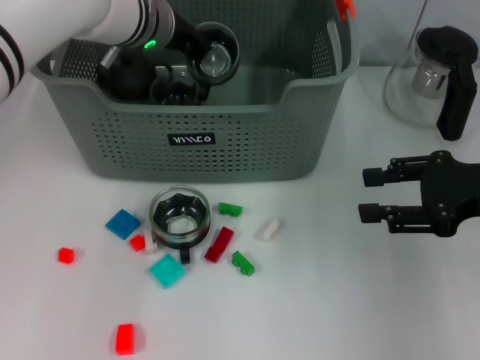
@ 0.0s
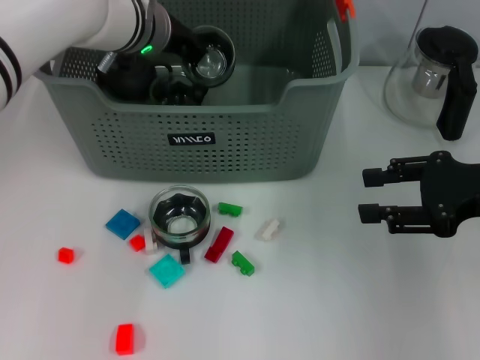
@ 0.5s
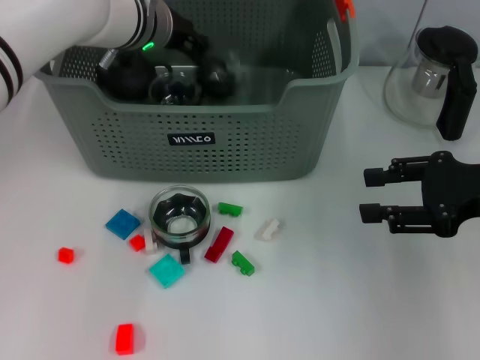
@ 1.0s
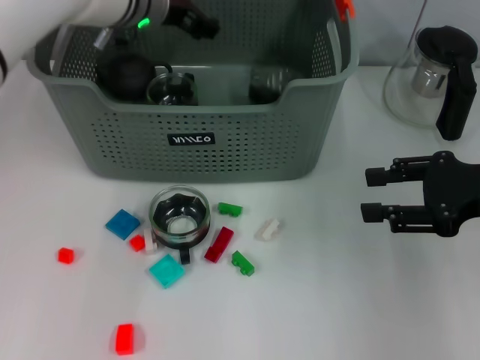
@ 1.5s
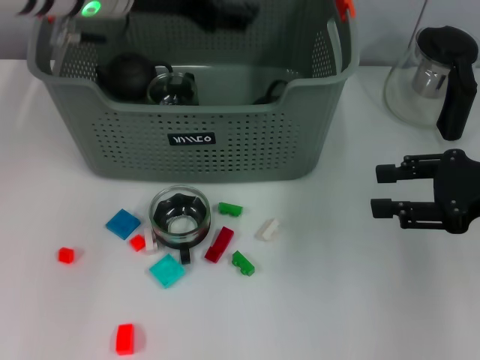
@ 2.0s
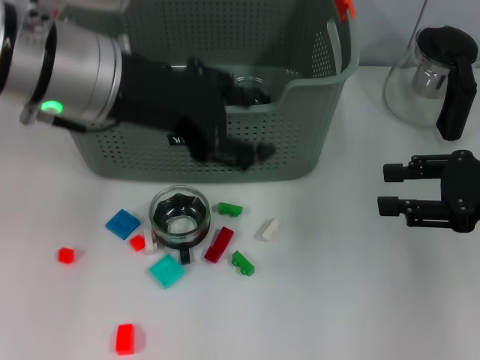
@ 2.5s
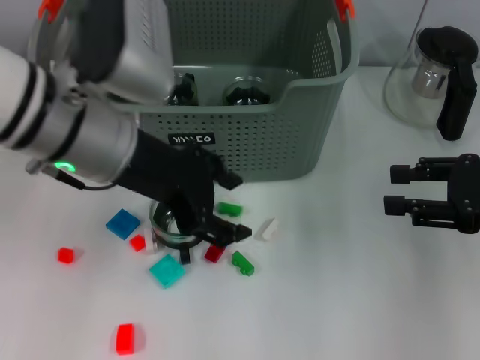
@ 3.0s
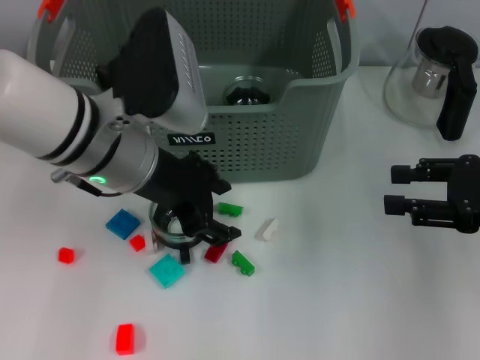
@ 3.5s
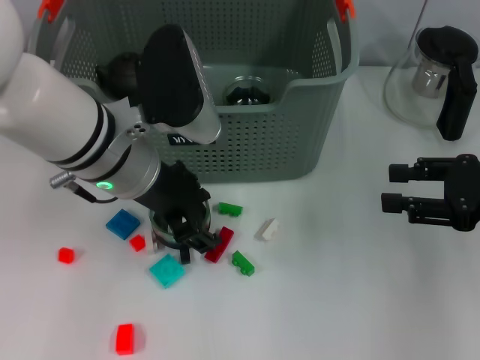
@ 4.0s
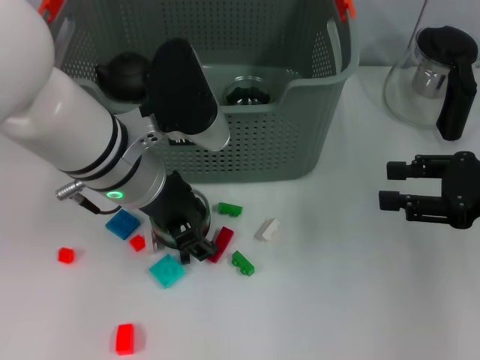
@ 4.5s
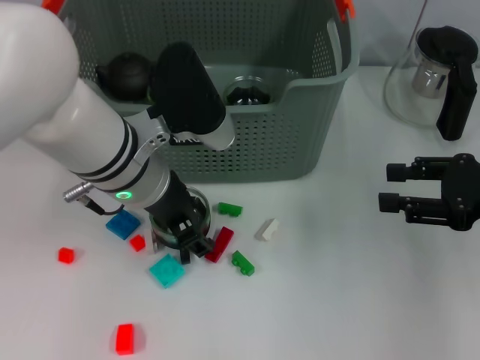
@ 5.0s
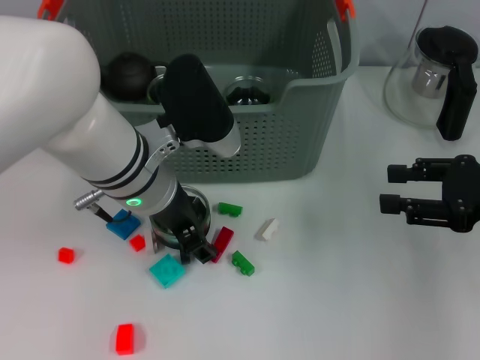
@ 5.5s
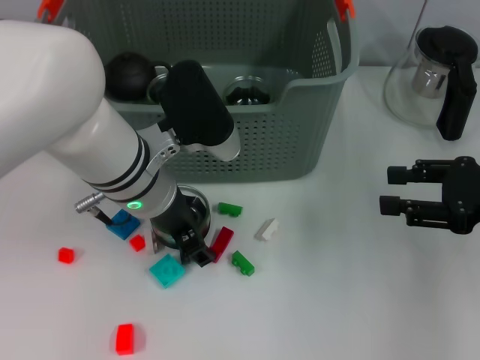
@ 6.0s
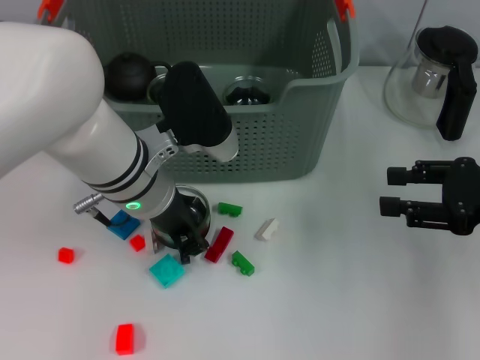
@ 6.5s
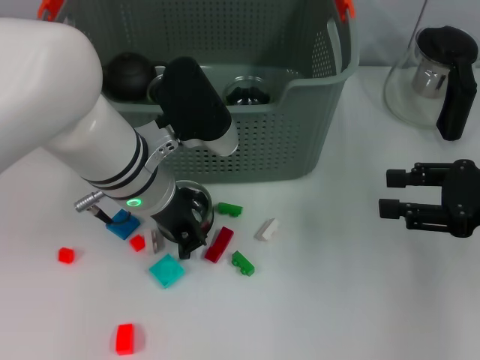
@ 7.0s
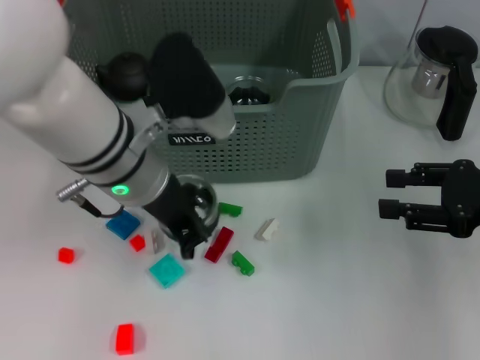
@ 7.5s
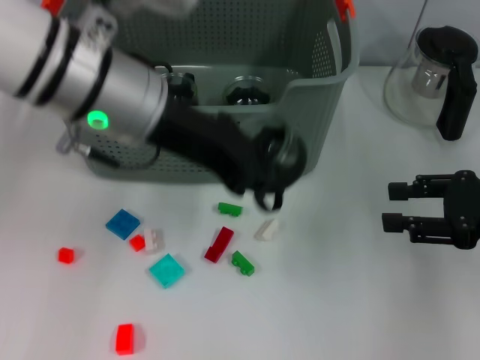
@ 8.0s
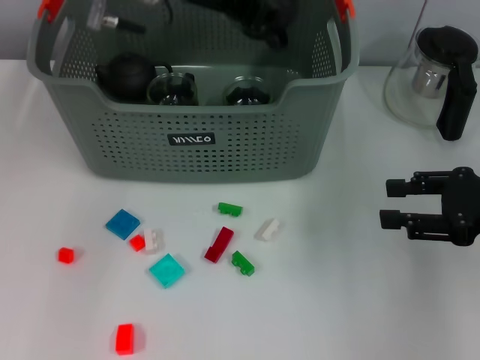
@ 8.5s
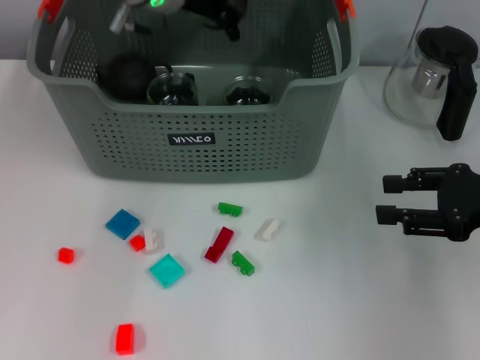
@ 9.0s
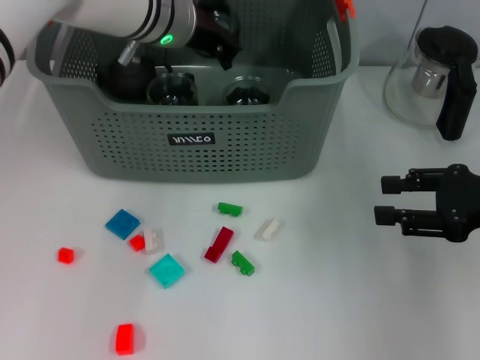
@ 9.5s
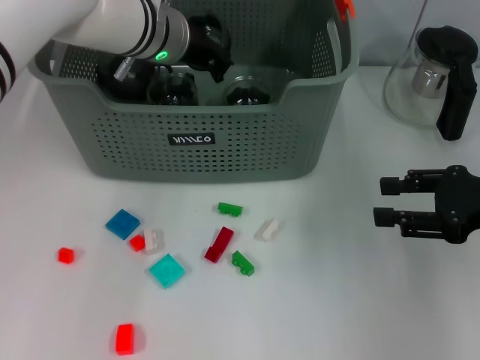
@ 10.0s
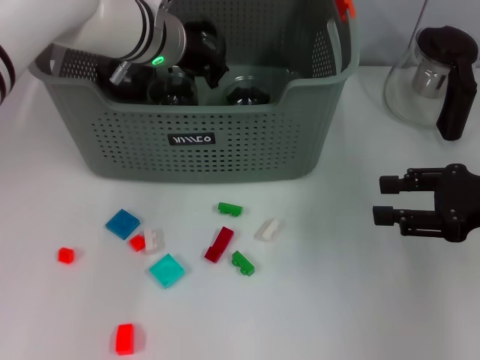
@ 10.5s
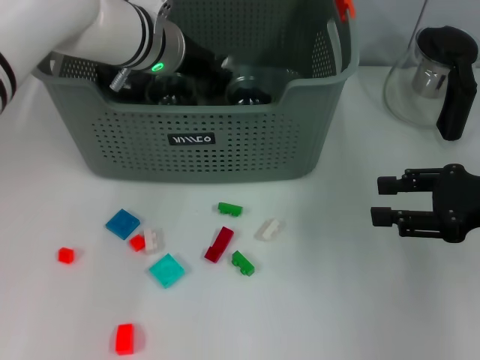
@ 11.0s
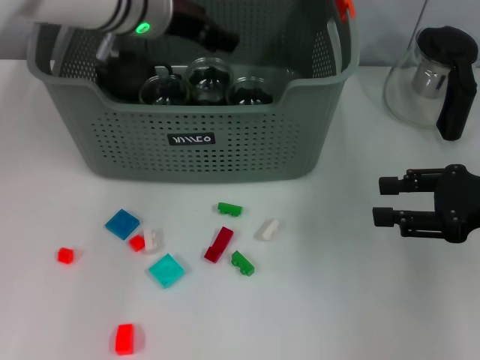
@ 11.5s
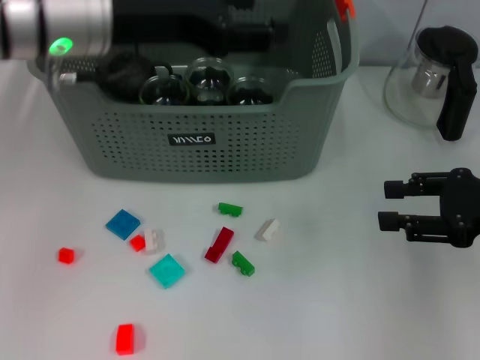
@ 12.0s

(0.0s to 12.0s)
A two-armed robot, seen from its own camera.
Task of the whole recording: pick up the teacup on the table and place it into the storage bin, pick up the block on the table and place it into the storage bin.
Step, 1.5s - 6.5s: Grasp the cup with left gripper.
Step, 7.0s - 11.0s: Place the cup in the storage box with left gripper.
0.0s - 2.0s: The left gripper travels upward and backward by some 10 cm, and opens.
2.0s - 4.0s: The left gripper travels downward and backward by approximately 10 cm.
4.0s - 6.0s: There are only small adjustments of the grippers.
6.0s - 8.0s: The left gripper shifts about 10 cm upward, and closes up.
8.0s - 10.0s: The left gripper is displaced forward and downward by approximately 15 cm.
10.0s - 12.0s: The left gripper is displaced backward, upward and to the left by roughly 15 cm, and opens its fingers.

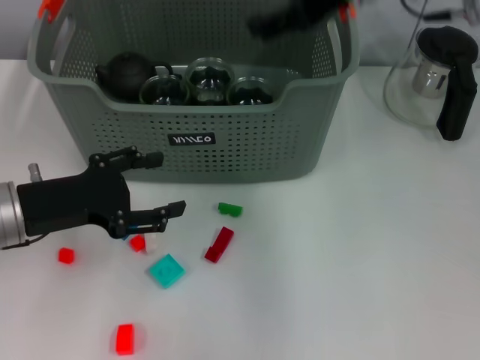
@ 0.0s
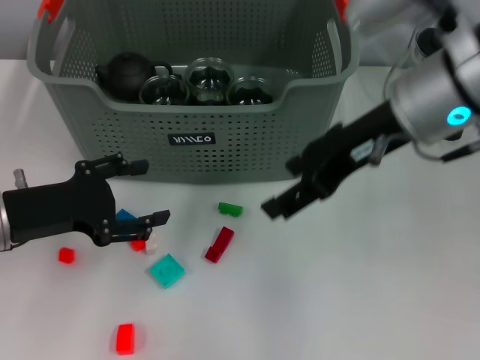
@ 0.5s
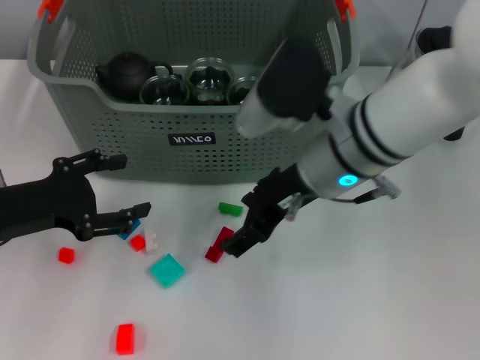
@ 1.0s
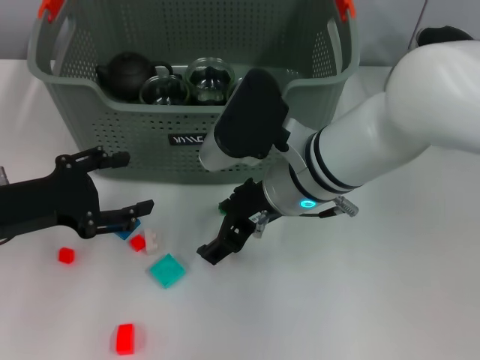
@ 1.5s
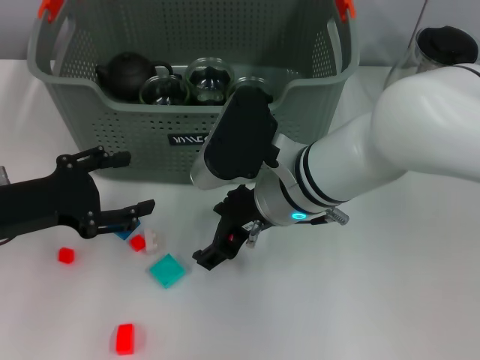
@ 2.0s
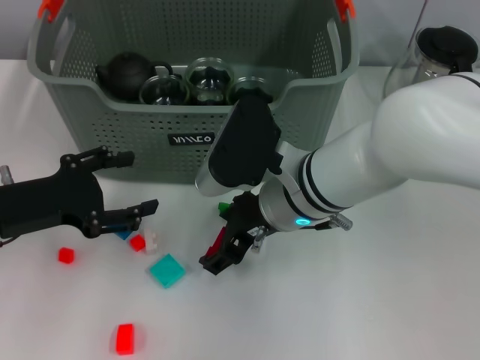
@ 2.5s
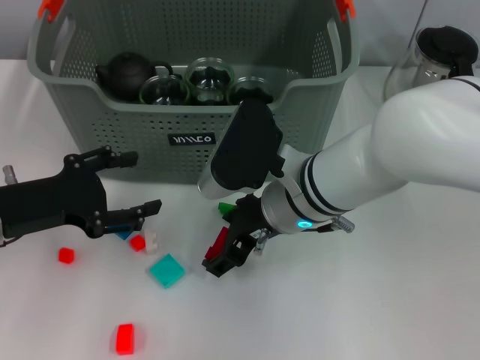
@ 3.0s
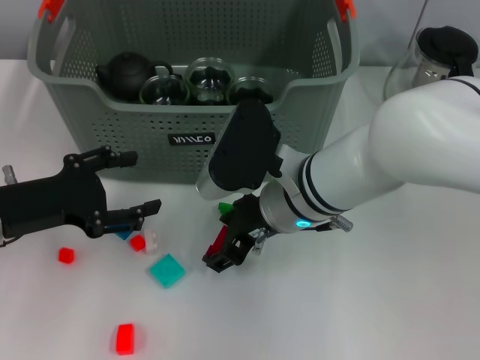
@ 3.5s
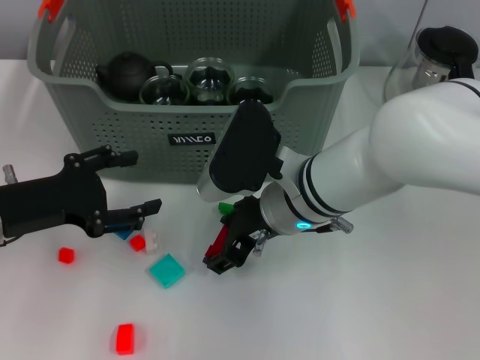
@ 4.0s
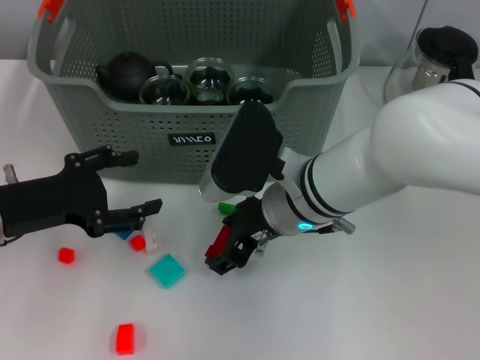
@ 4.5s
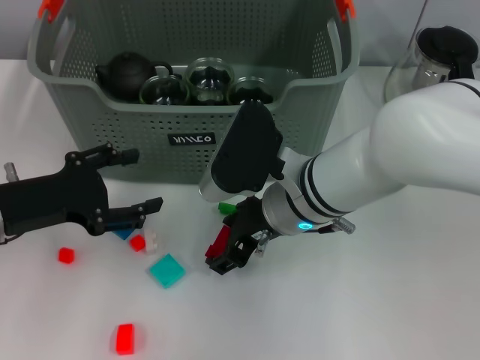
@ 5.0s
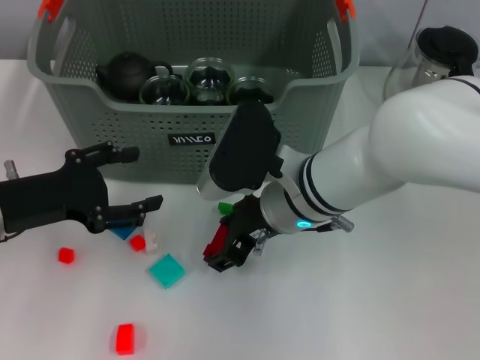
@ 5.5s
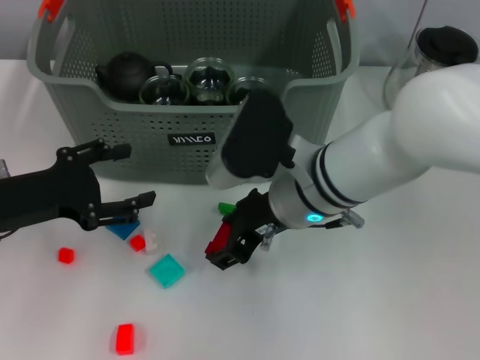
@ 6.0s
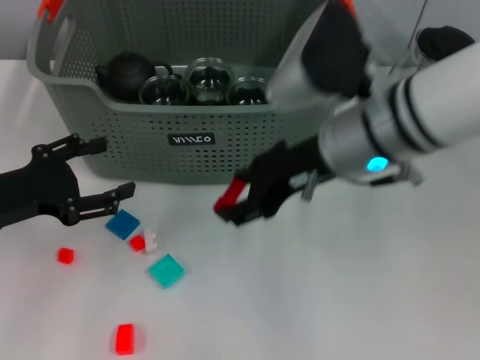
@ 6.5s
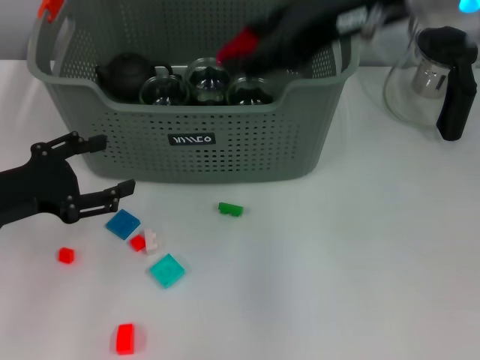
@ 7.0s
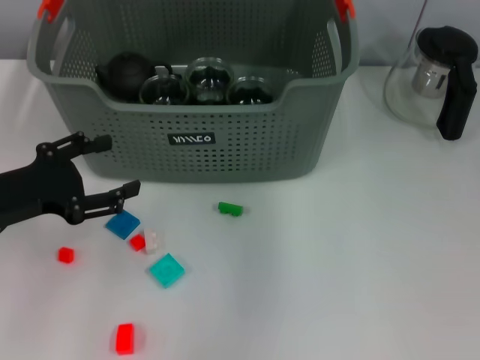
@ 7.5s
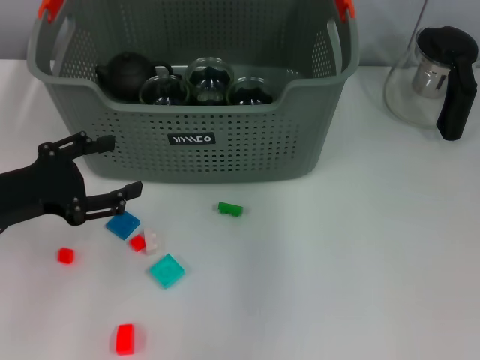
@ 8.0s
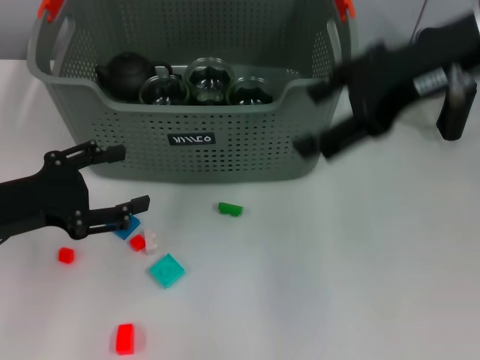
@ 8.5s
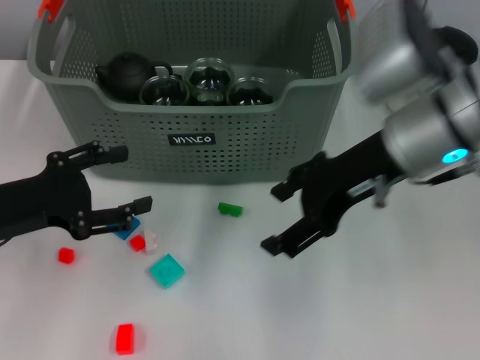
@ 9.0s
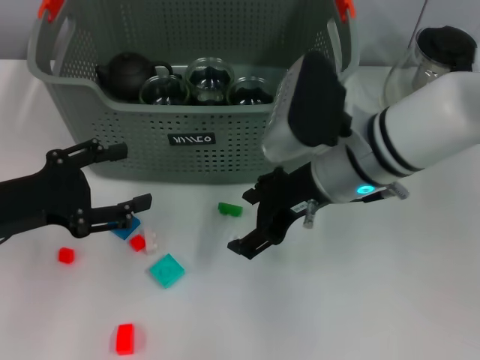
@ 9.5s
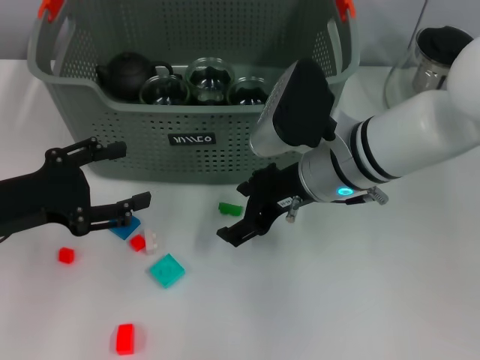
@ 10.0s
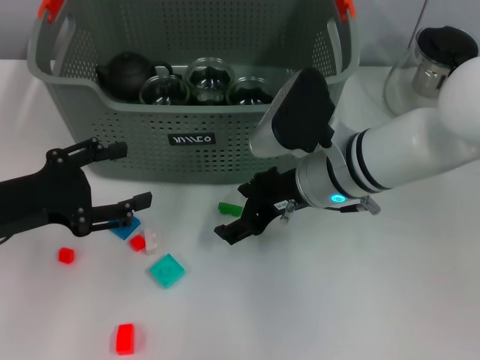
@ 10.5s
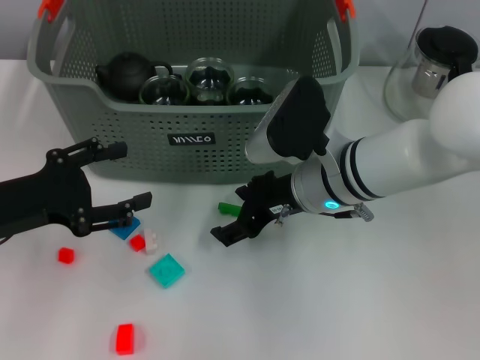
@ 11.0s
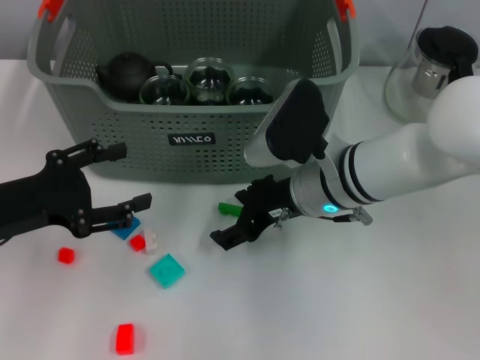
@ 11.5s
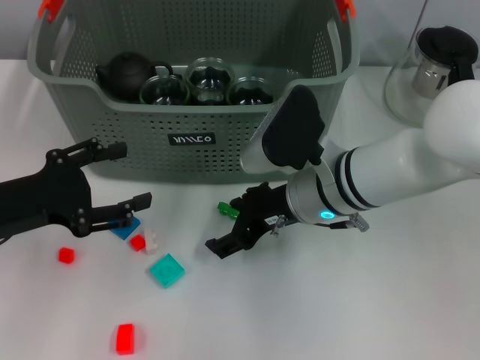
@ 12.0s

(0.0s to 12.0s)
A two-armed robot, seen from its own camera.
Task of the whole recording: pick up the teacup on the table and place it into the storage bin, pick up the block on the table and place it into the storage bin.
Step, 0.0s - 5.0s: Grasp the red block with right gripper.
Step, 5.5s - 7.5s: Place the red block in the storage box with right gripper.
0.0s - 2.0s: The right gripper travels downward and to the left by roughly 20 cm.
2.0s - 4.0s: The two grippers keep their place.
4.0s - 6.0s: The grippers move only a little.
6.0s - 8.0s: The right gripper is displaced upward, to the right and forward by some 25 cm.
8.0s - 10.0s: The right gripper is displaced downward, to the left and backward by about 20 cm.
10.0s - 12.0s: The grippers move only a little.

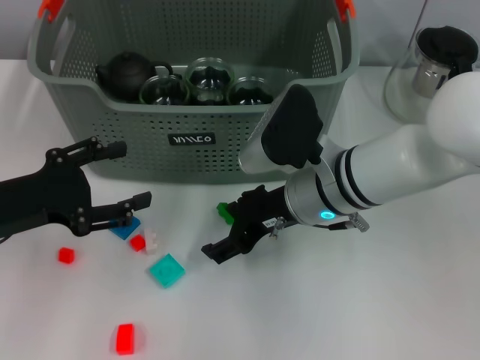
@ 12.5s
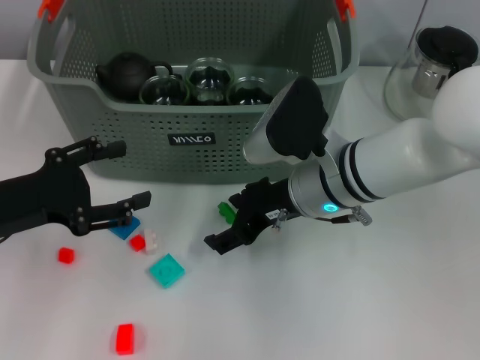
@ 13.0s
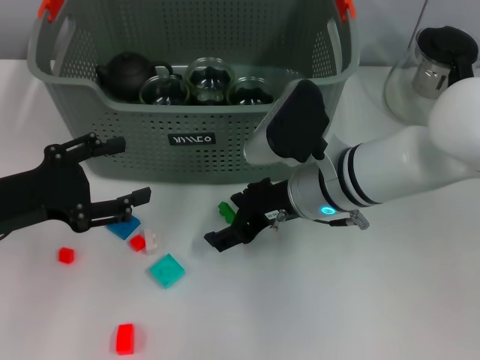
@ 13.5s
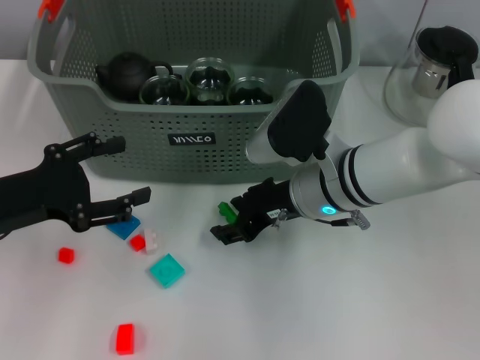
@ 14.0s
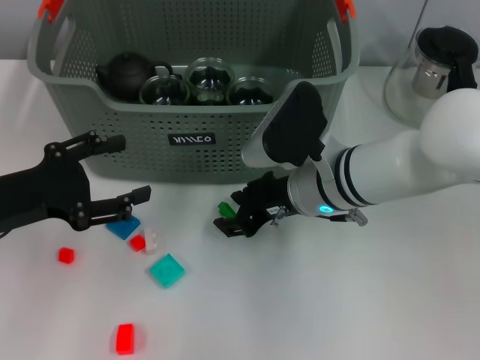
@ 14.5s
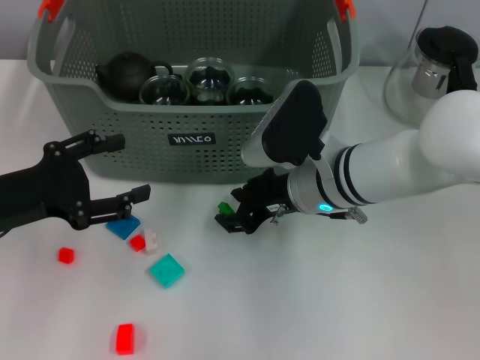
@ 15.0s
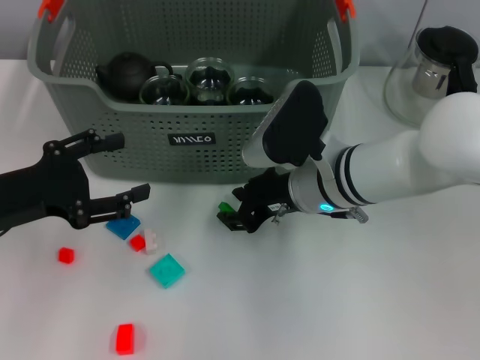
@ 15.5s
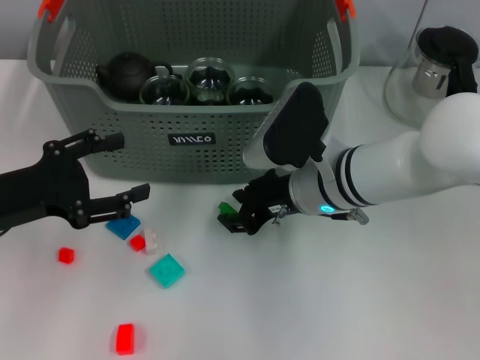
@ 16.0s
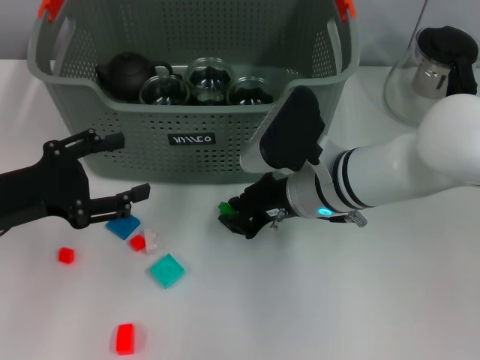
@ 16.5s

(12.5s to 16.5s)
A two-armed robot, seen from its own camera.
Task of the whole recording: pick up the teacup on the table and place it into the storage bin, pick up the block on the table and place it into the storage bin.
12.5s - 14.5s: The grippers move only a little.
14.5s - 16.5s: Both grippers stay put.
